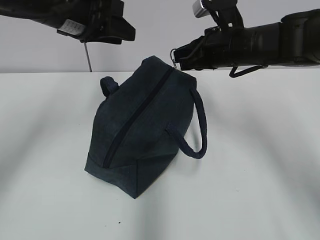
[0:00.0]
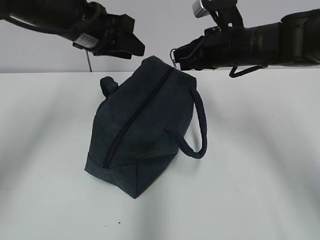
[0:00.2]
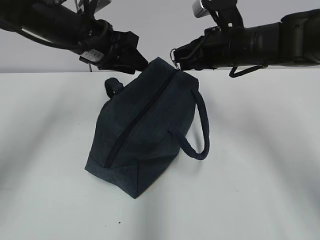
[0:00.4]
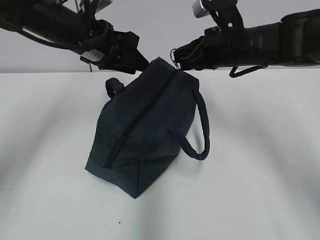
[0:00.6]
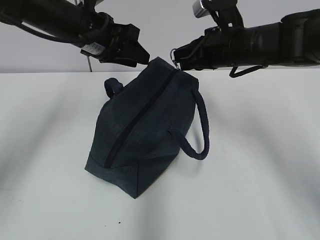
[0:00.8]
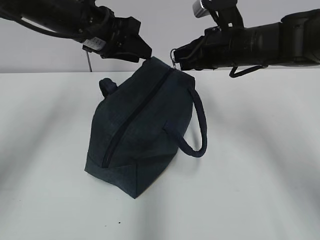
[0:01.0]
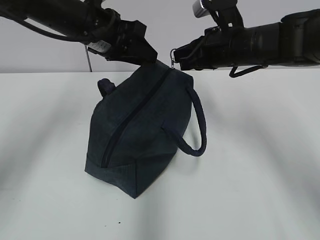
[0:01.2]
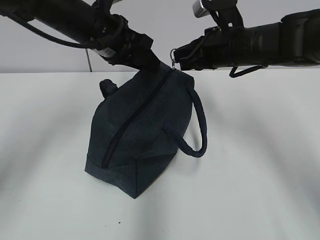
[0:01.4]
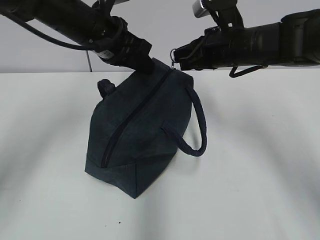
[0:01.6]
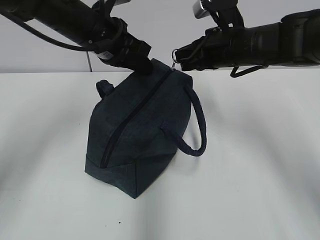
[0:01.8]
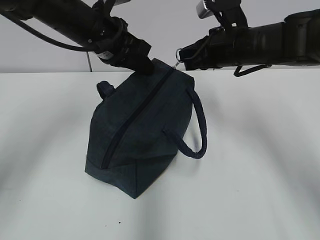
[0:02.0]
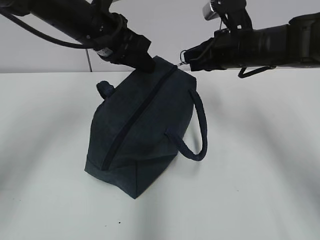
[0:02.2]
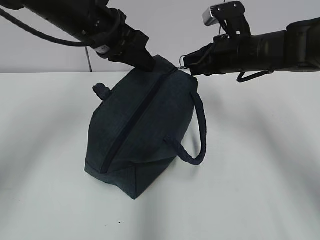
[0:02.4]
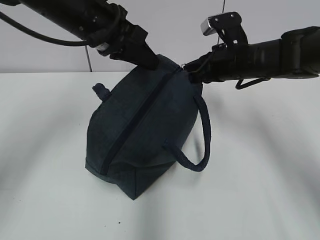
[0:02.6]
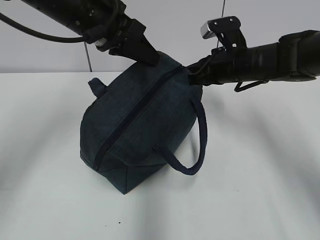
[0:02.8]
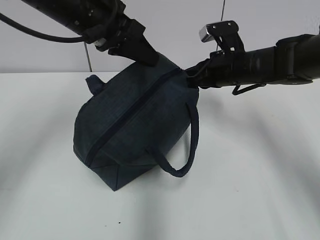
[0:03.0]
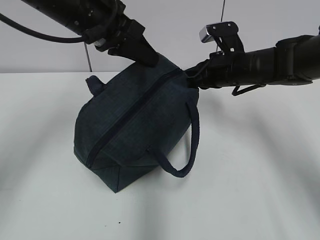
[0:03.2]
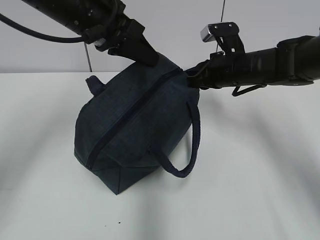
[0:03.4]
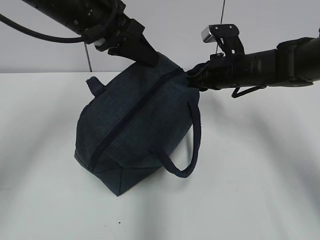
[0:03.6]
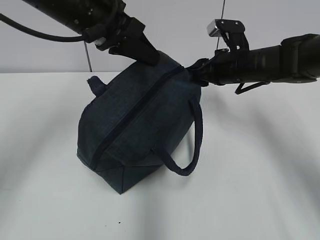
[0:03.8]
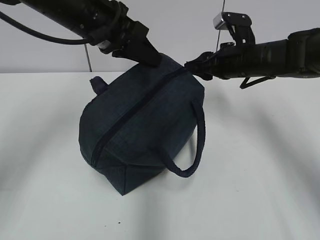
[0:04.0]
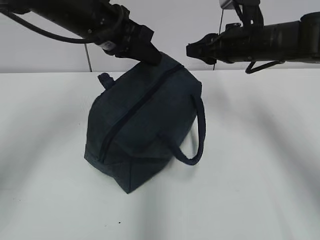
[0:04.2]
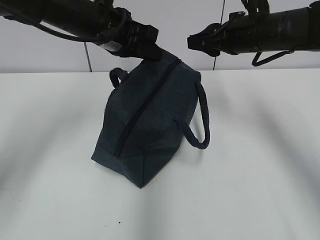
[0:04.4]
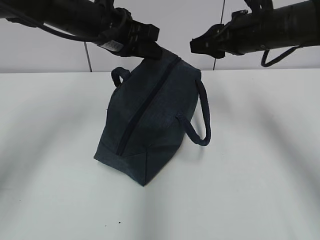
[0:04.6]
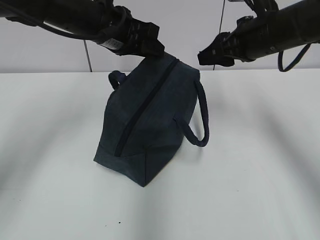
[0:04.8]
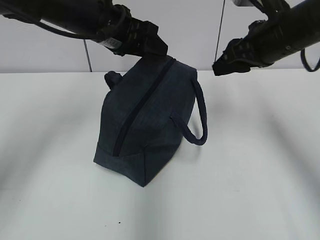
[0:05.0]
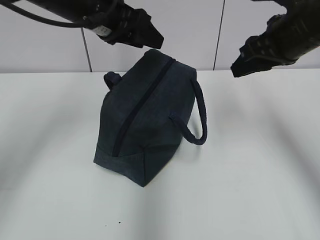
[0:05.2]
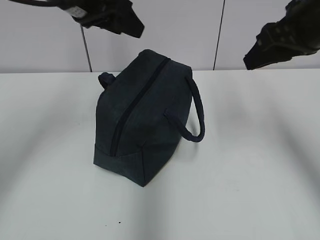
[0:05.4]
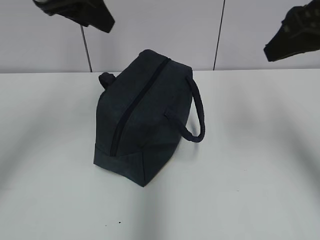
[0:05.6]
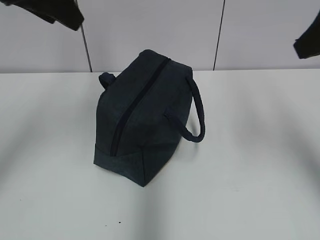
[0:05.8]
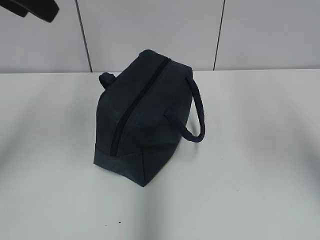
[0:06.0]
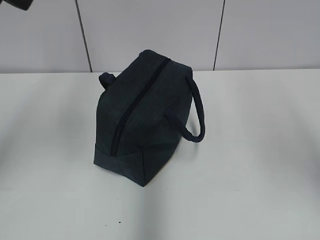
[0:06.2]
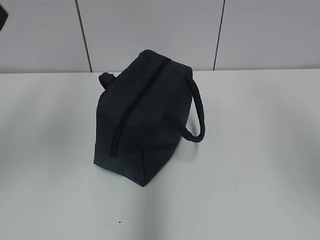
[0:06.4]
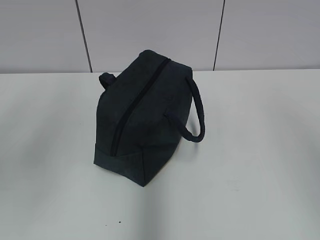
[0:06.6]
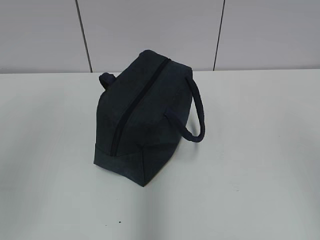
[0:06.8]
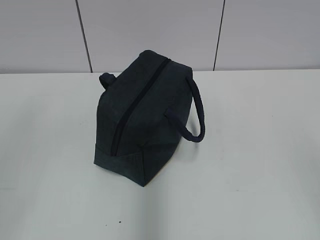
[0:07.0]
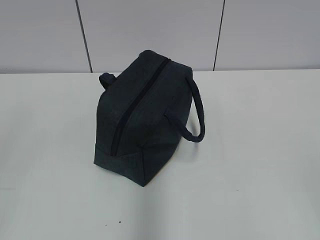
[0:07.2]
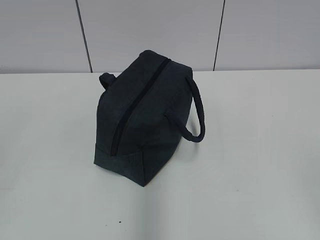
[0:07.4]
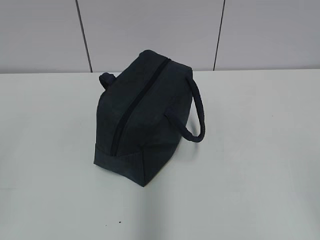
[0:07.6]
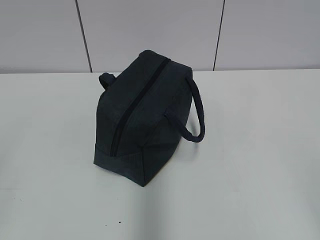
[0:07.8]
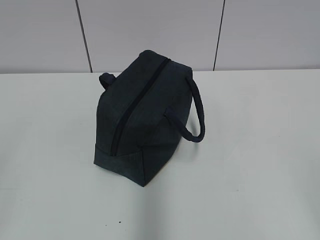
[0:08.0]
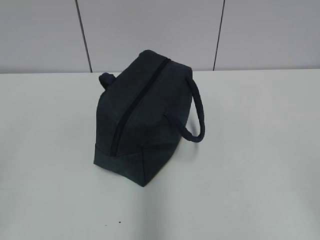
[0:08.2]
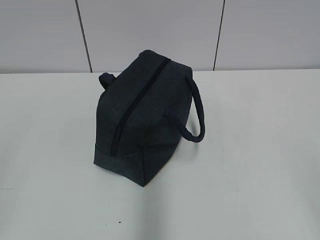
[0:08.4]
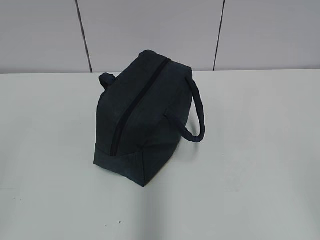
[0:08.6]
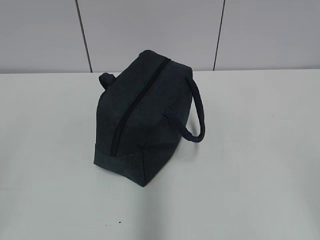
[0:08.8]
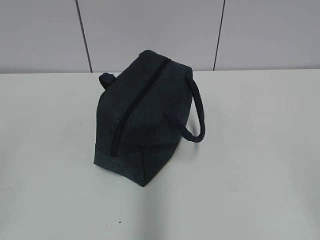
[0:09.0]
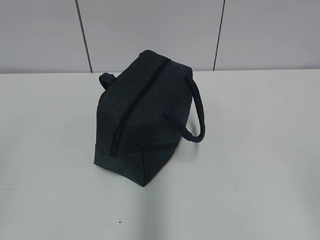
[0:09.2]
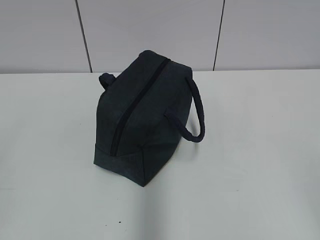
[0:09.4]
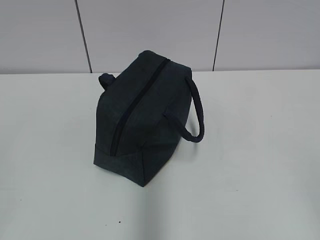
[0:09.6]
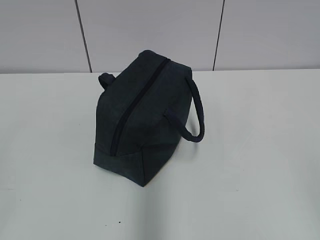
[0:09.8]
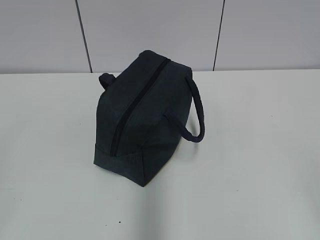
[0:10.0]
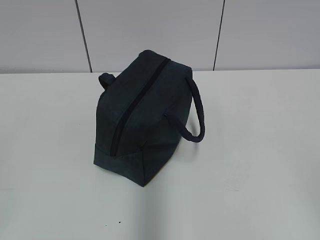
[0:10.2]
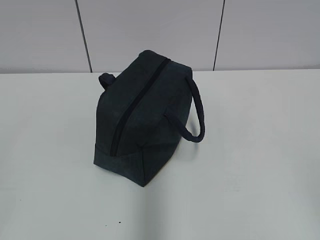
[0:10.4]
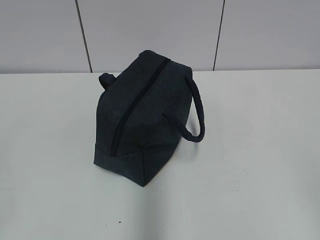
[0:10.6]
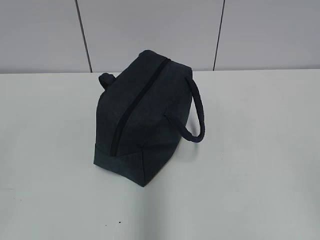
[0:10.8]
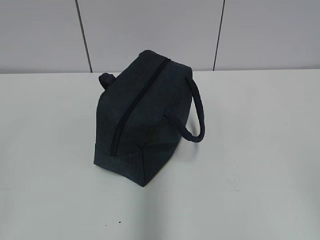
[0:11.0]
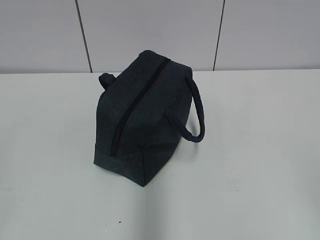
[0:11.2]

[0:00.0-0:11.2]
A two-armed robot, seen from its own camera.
0:00.0 to 0:01.6: The left gripper changes place by about 5 cm, and closes.
0:01.6 to 0:03.2: The right gripper is displaced downward by some 5 cm; the left gripper shifts by roughly 5 cm.
0:03.2 to 0:04.8: The right gripper travels upward by some 10 cm, and opens its fingers; the left gripper moves roughly 5 cm, and opens up.
0:04.8 to 0:06.4: The right gripper travels backward and upward by about 35 cm; the left gripper is displaced backward, upward and to the left by roughly 30 cm.
0:06.4 to 0:08.0: The left gripper heads backward, downward and to the left, covering approximately 25 cm.
0:09.6 to 0:11.2: Neither gripper changes place.
